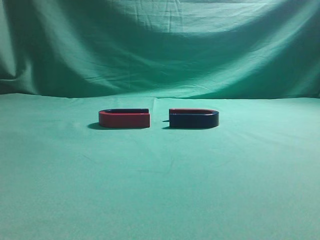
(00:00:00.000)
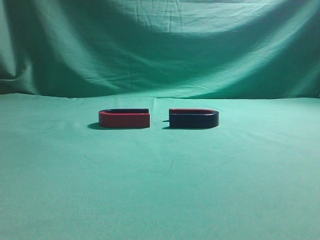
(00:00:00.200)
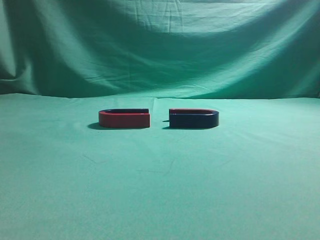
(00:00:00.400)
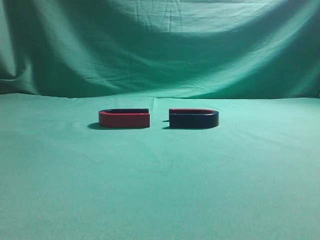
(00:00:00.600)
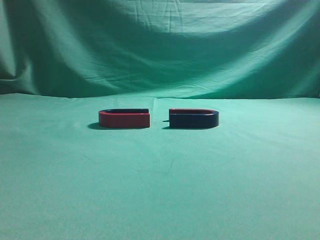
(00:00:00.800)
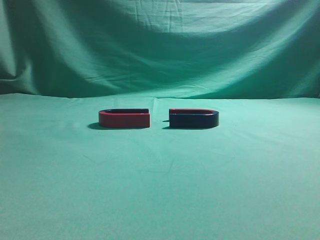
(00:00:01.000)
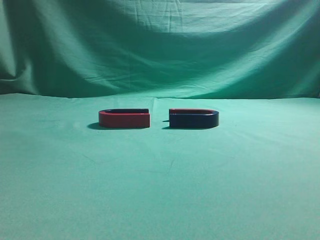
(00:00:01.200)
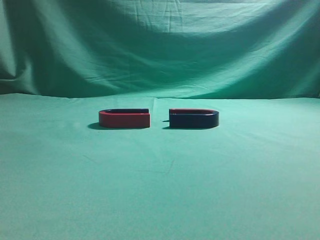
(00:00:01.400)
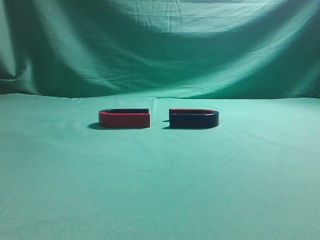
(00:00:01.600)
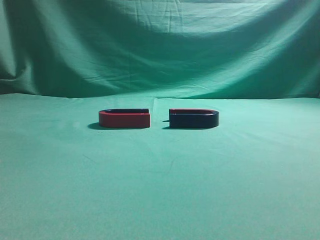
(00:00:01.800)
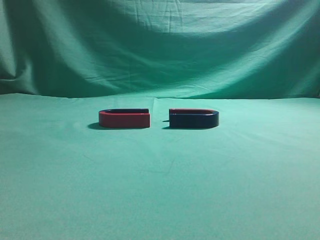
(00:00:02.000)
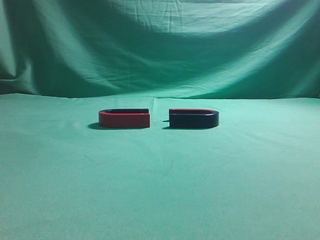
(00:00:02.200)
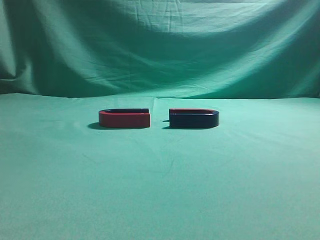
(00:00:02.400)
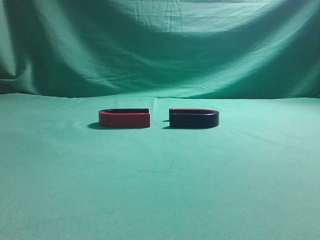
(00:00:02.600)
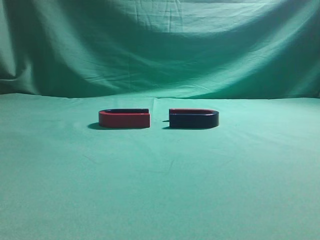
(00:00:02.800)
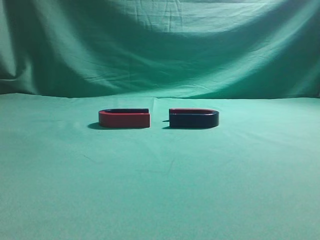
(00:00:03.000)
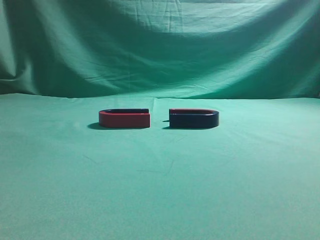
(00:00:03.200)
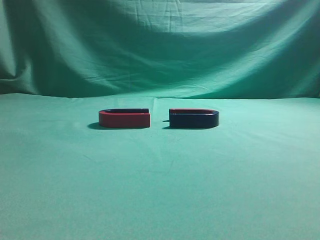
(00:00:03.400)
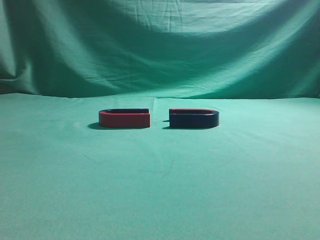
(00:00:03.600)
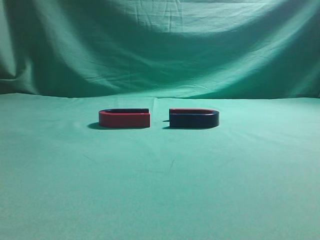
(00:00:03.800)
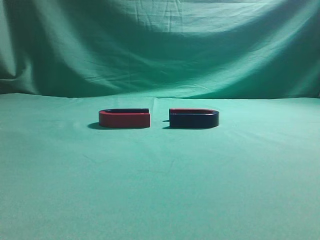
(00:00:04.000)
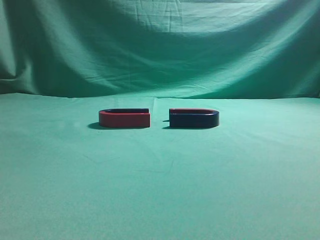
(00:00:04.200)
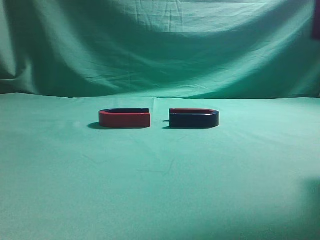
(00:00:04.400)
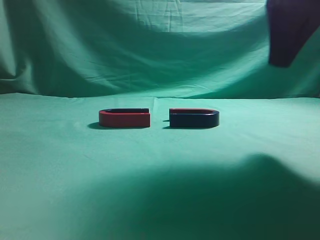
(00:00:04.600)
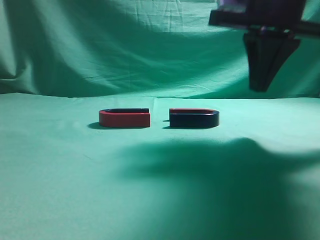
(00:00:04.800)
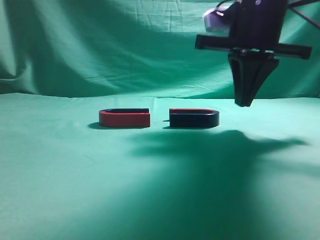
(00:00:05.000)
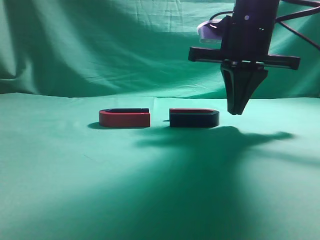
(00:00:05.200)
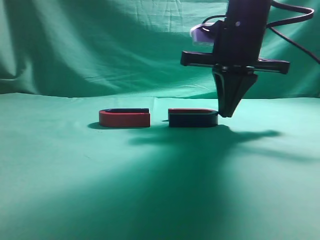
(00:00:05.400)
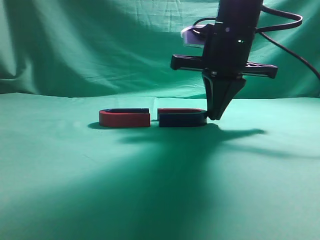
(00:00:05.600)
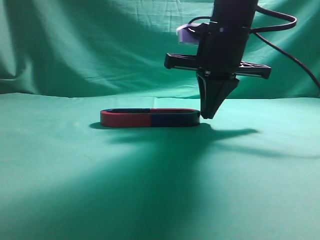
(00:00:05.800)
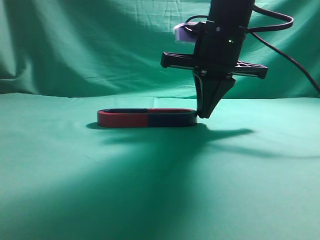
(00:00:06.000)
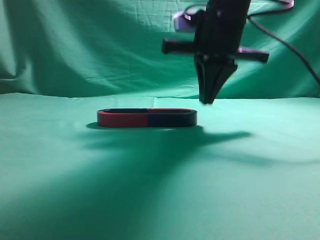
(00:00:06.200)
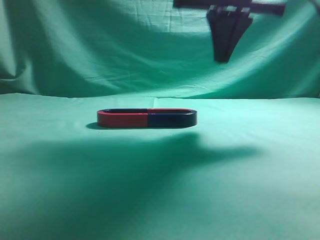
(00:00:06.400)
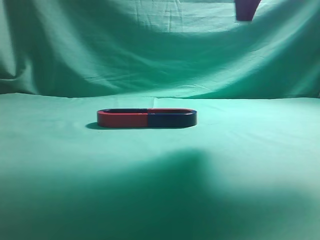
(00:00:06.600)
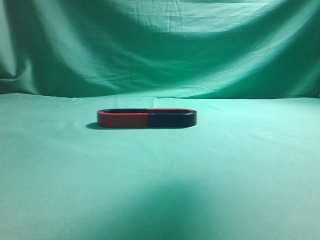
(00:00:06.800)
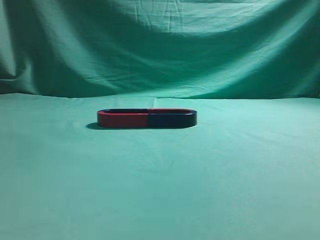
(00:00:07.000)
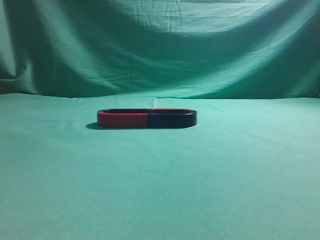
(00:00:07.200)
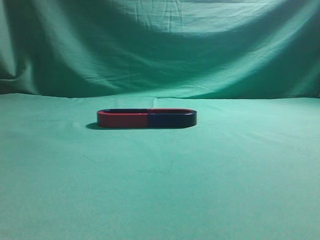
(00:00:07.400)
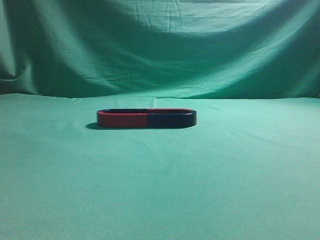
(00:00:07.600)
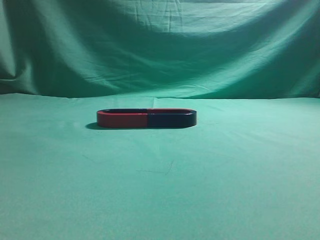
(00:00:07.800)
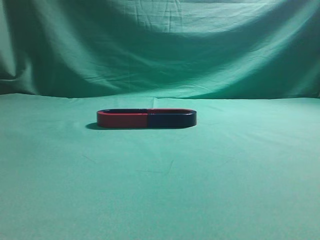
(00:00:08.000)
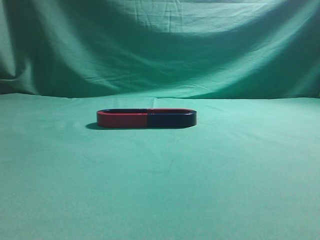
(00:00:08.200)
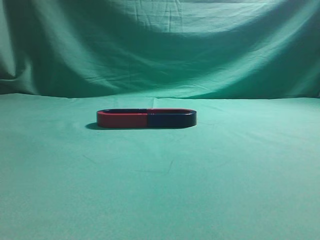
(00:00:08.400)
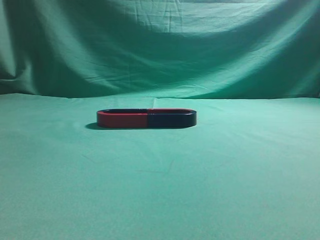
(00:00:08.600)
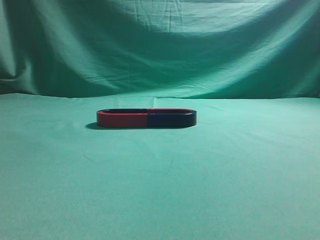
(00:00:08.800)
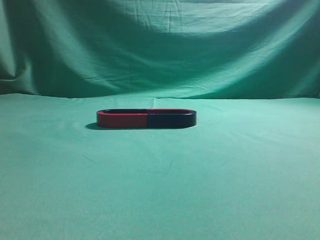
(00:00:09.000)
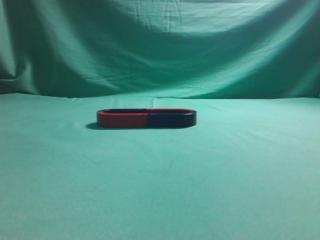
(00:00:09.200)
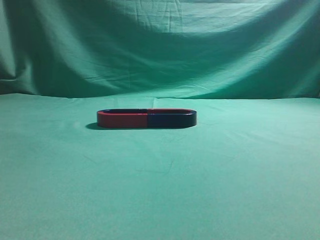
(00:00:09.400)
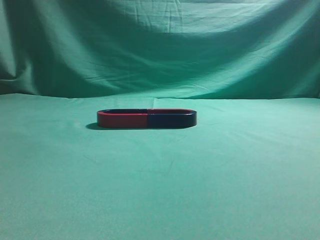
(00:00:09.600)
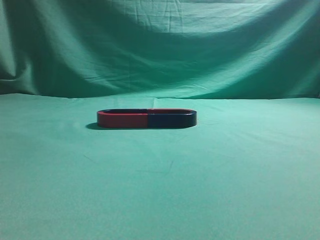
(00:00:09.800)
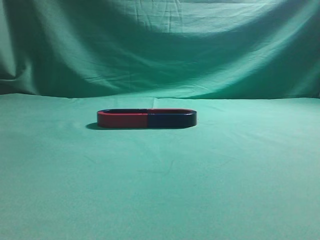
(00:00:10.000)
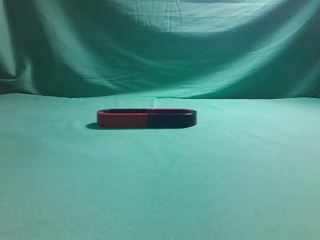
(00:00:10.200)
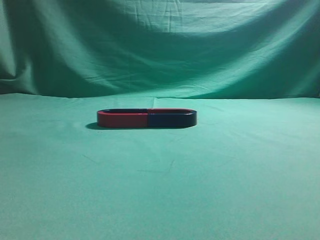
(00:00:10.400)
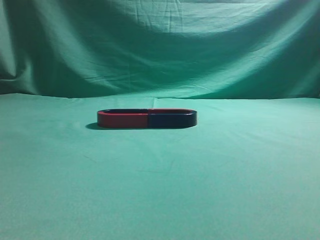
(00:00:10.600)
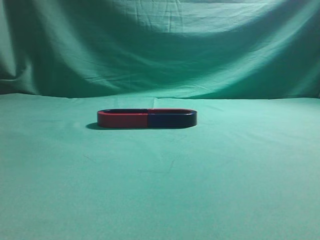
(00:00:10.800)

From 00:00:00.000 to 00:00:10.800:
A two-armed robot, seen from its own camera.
Task of the whole recording: push the magnet on the table from its original position to another position.
Step, from 00:00:00.000 to 00:00:06.000: Push the magnet on the right to connect the magnet on the left.
From 00:00:03.000 to 00:00:04.600: The right gripper travels forward and to the left by about 25 cm.
From 00:00:04.600 to 00:00:06.200: The right gripper moves forward, to the left and downward, approximately 15 cm.
From 00:00:06.200 to 00:00:07.800: The right gripper moves backward, upward and to the right, some 40 cm.
